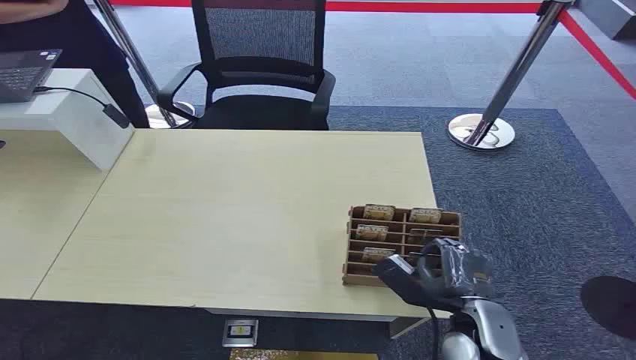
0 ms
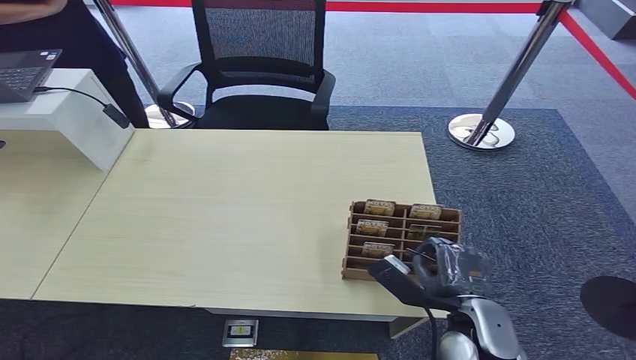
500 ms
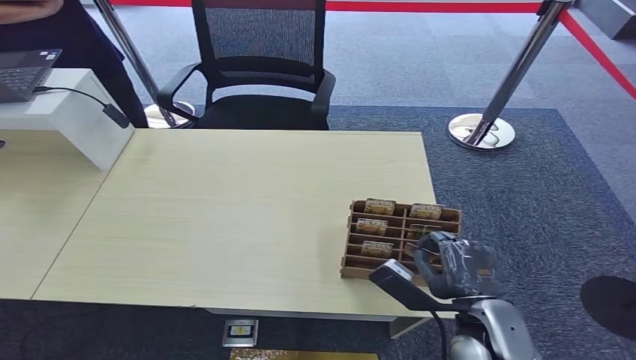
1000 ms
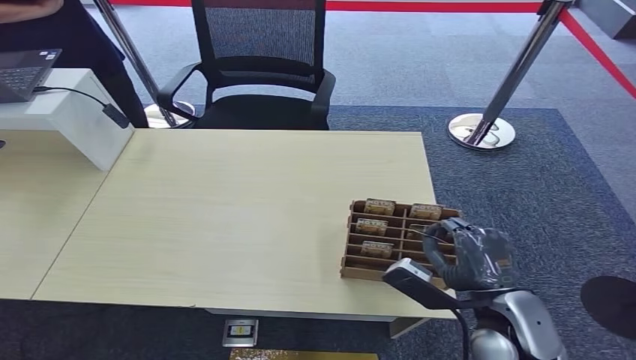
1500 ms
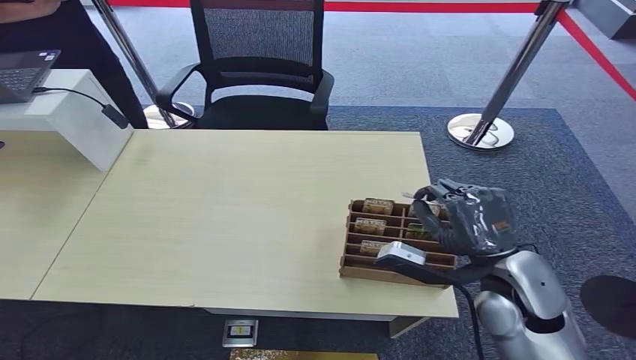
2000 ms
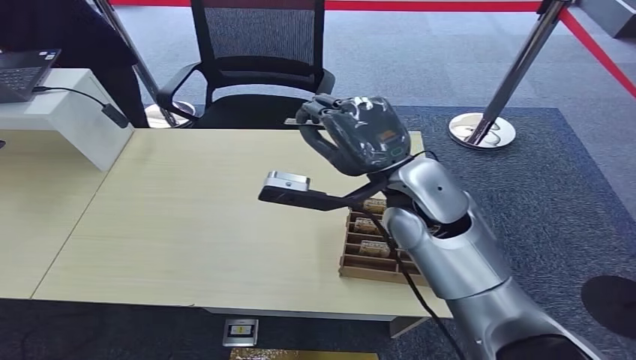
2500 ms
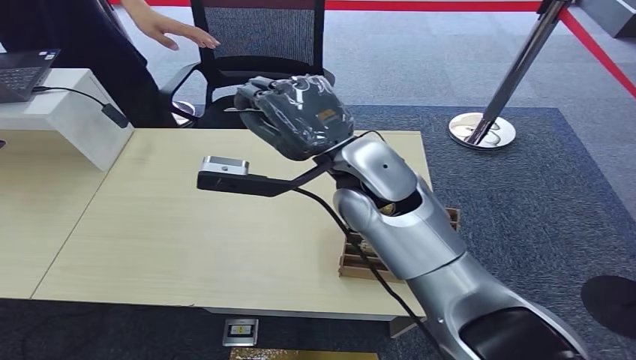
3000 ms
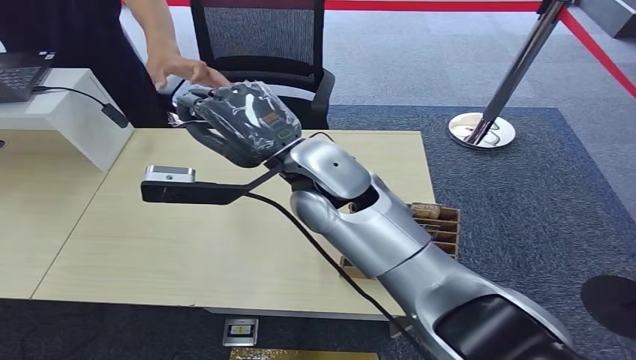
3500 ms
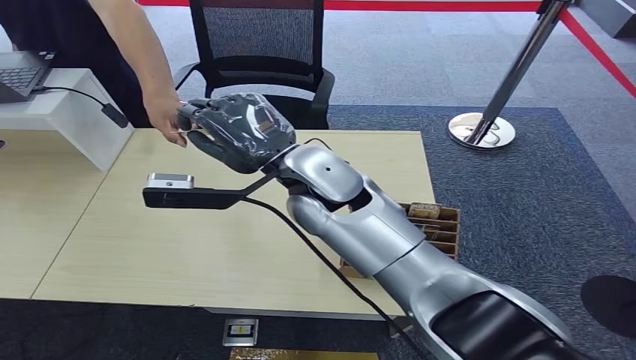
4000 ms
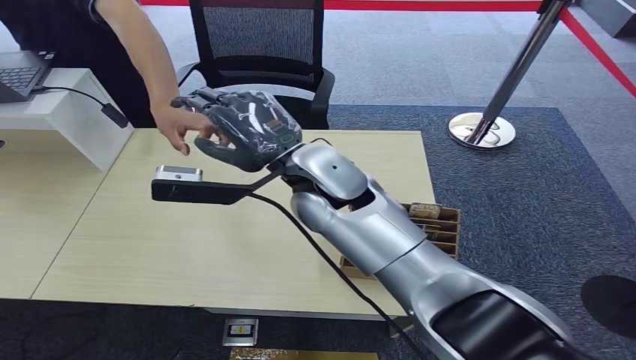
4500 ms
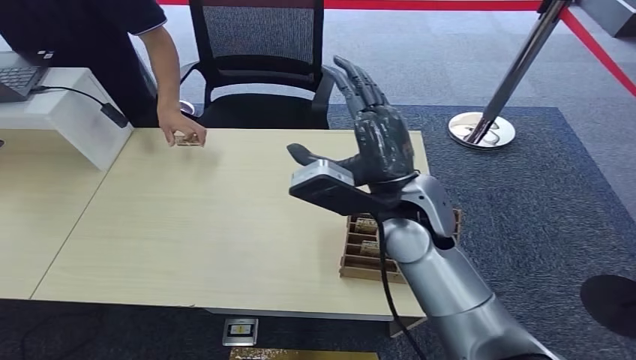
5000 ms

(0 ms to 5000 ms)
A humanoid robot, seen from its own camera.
Step, 0 ms - 2000 ms: Pick up the key card from the card box.
Step, 2500 ms - 5000 ms: Hand the key card to the target.
2500 ms - 5000 ms: The right hand travels to the left and back again, approximately 10 cm each way.

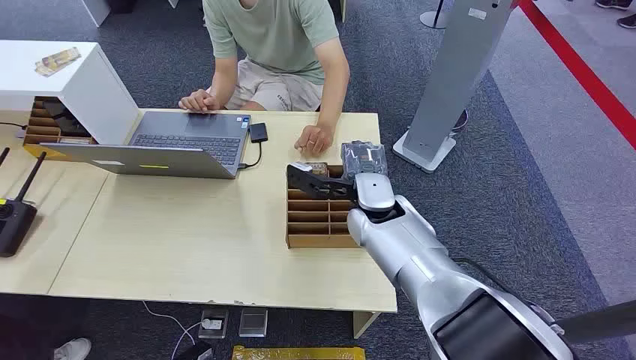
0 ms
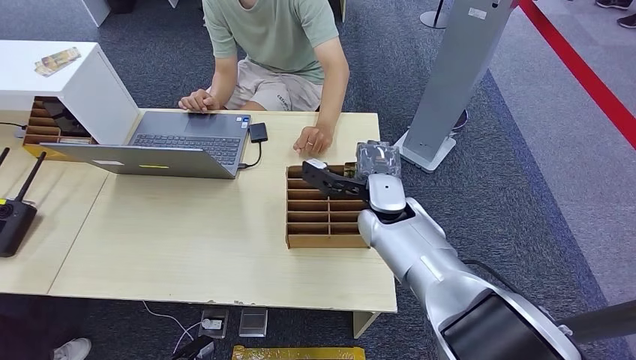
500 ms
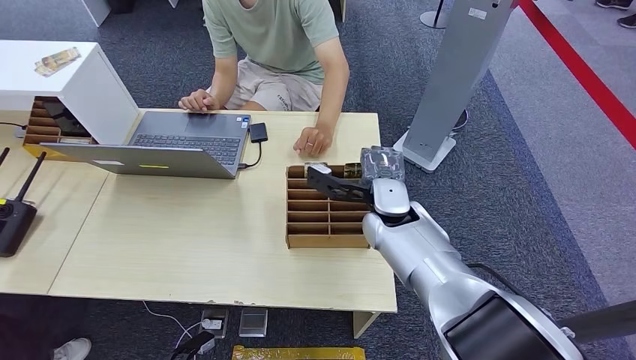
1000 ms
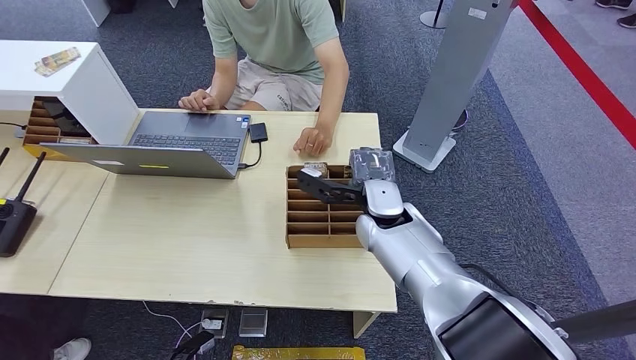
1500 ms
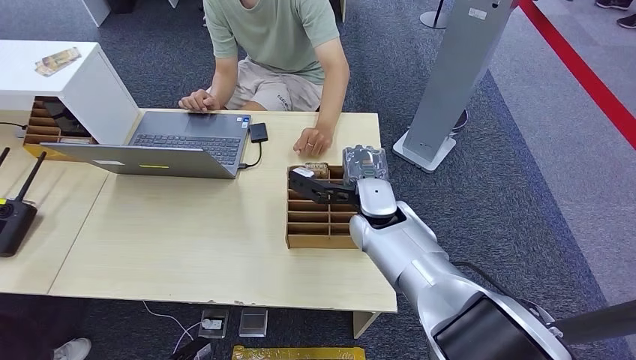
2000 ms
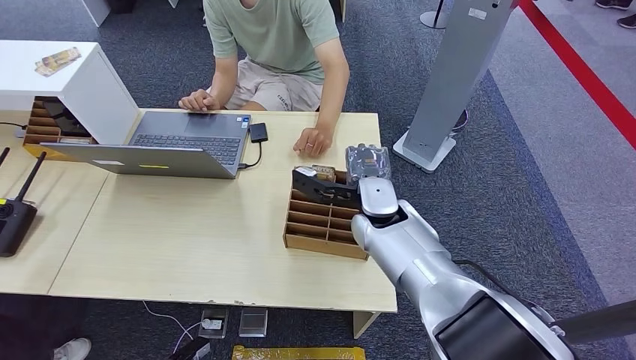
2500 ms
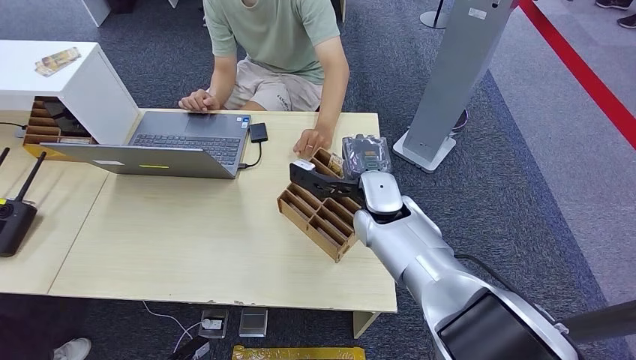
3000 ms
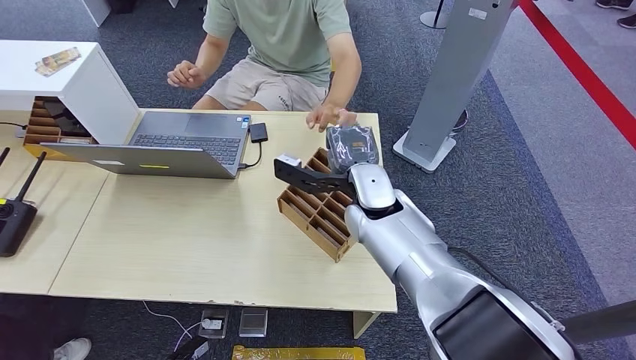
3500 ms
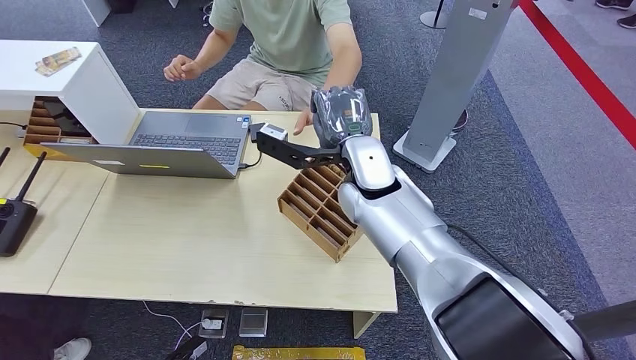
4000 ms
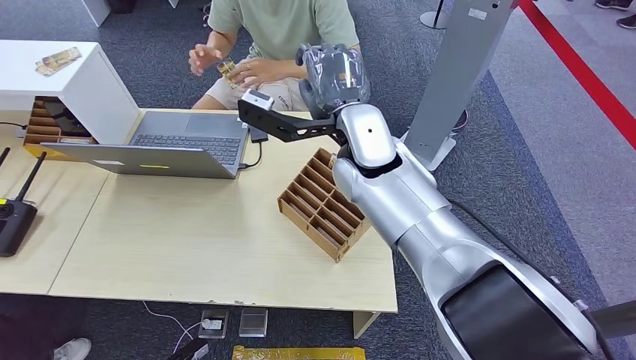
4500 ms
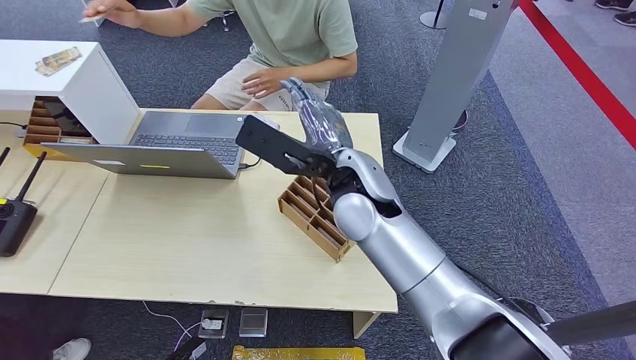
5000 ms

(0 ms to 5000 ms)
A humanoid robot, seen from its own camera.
Step, 0 ms - 3000 ms: Pick up the key card from the card box.
Step, 4000 ms - 5000 ms: Hand the key card to the target.
2500 ms - 5000 ms: The right hand heads upward, covering about 10 cm.
